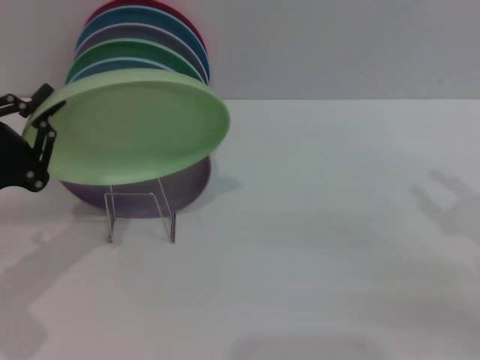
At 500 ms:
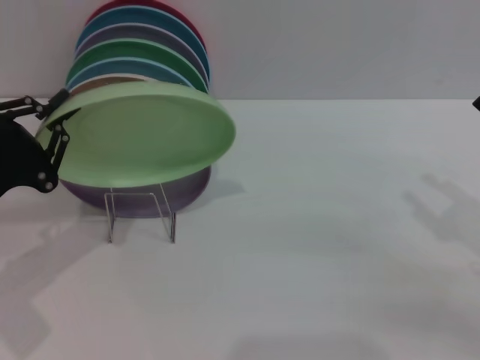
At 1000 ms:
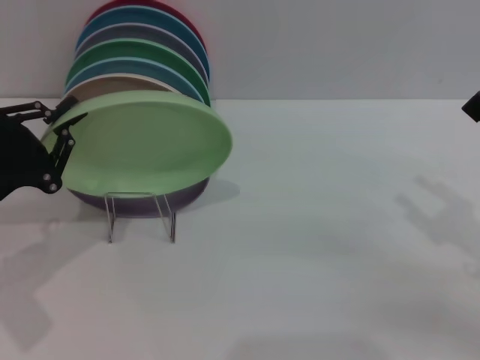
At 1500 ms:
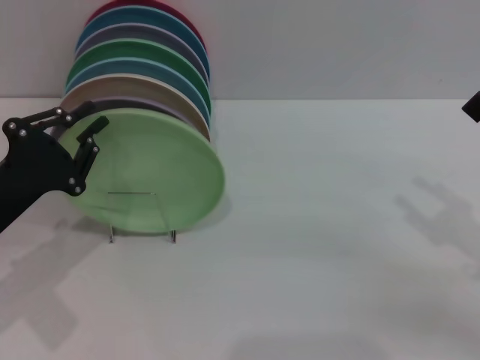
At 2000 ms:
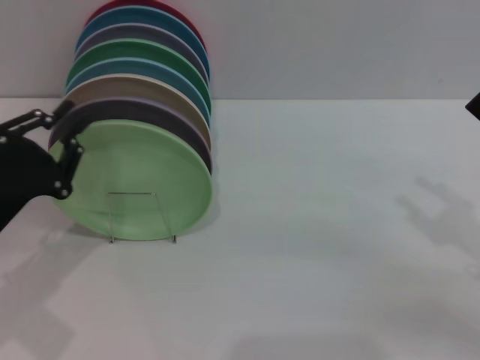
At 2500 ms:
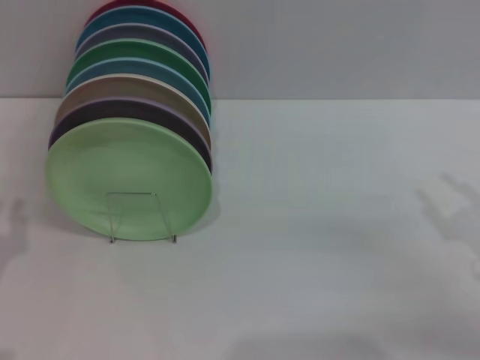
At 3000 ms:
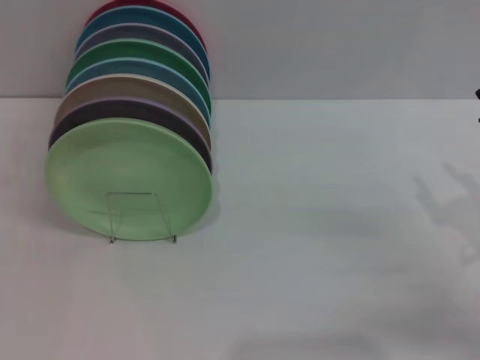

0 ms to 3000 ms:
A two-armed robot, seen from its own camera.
Task of the whole recording: Grip the plate with one hand, pass it to the other, then set it on the shelf.
0 ms to 1500 ms: The grippers stay close to where they were, moving slightly.
1500 ms to 3000 ms: The left gripper moves backward and to the left, some 10 cm, and opens.

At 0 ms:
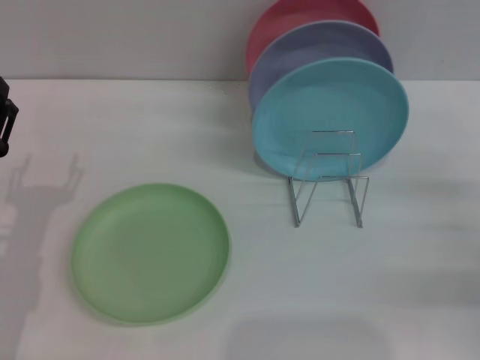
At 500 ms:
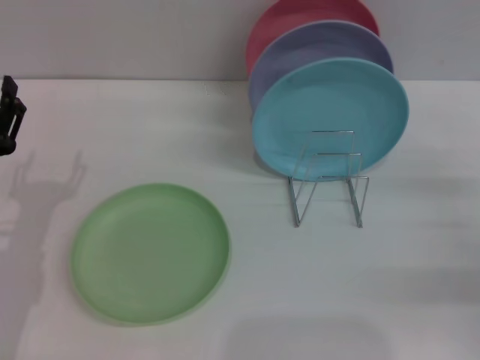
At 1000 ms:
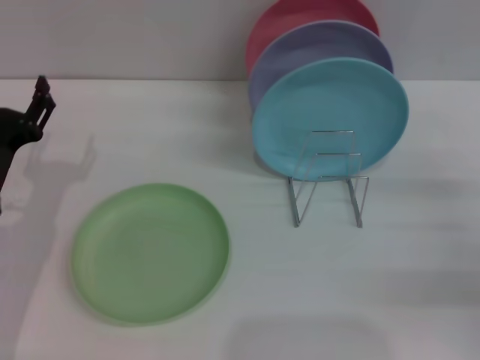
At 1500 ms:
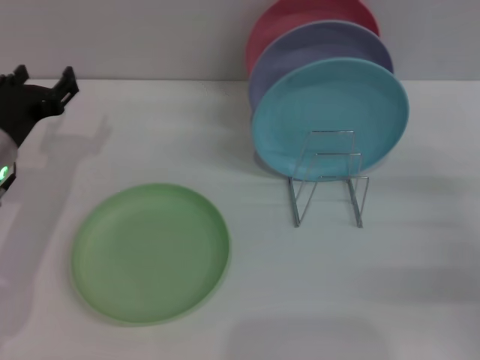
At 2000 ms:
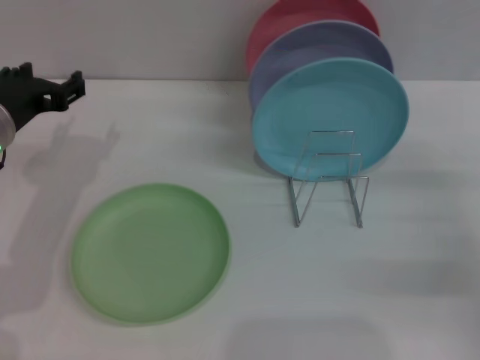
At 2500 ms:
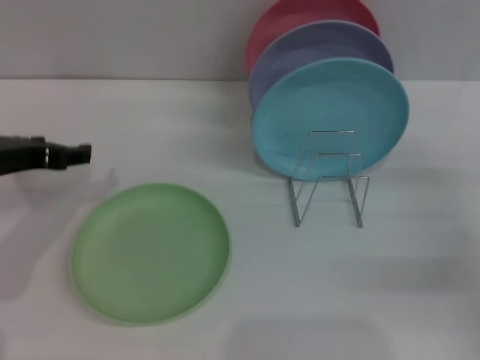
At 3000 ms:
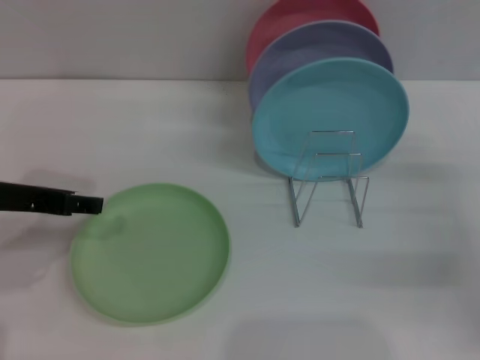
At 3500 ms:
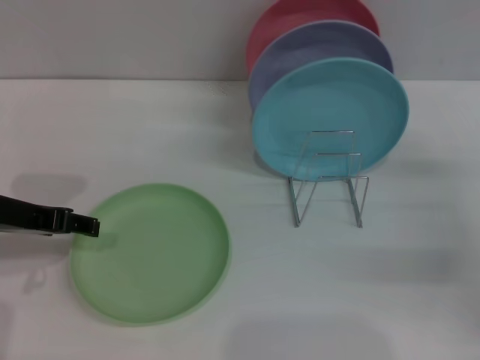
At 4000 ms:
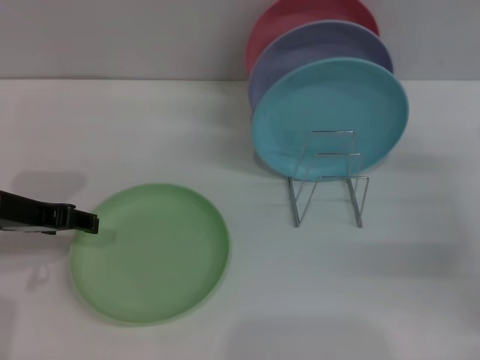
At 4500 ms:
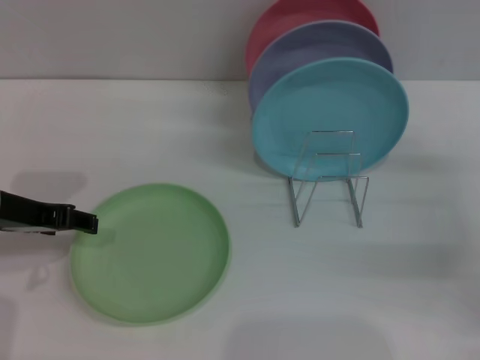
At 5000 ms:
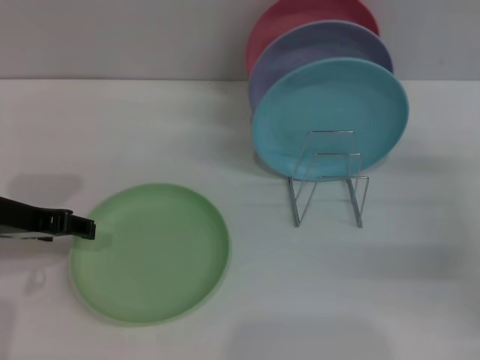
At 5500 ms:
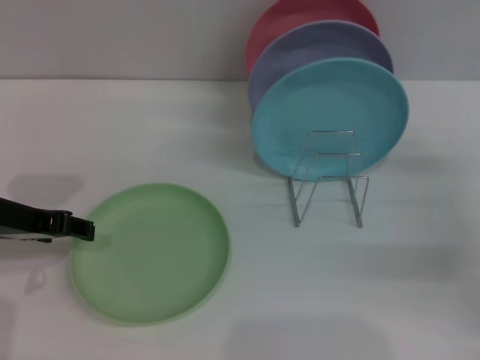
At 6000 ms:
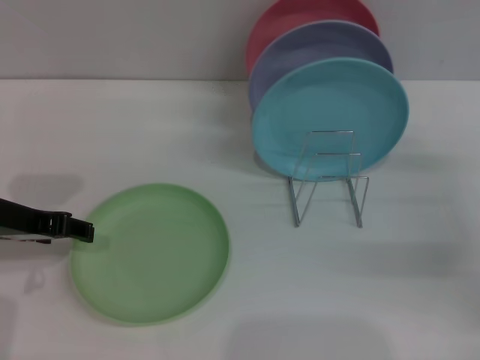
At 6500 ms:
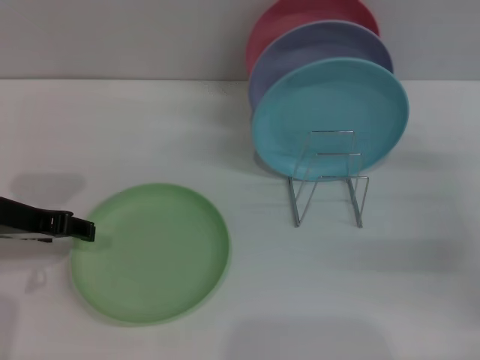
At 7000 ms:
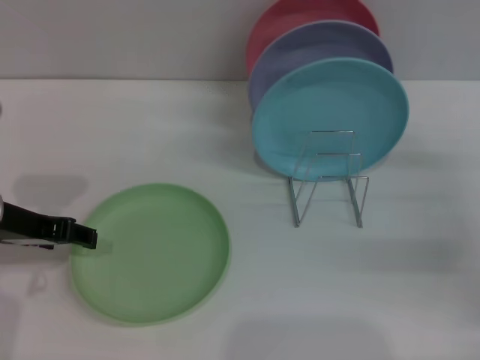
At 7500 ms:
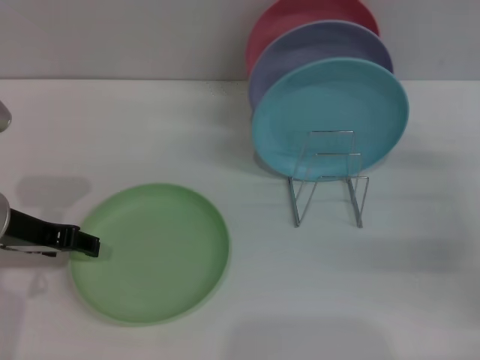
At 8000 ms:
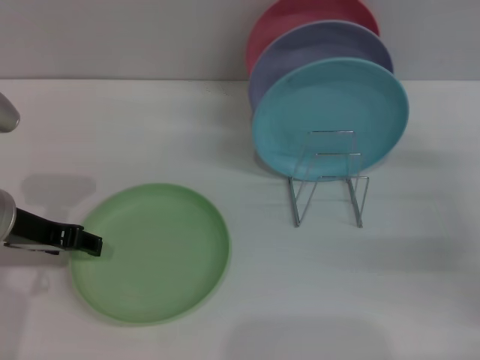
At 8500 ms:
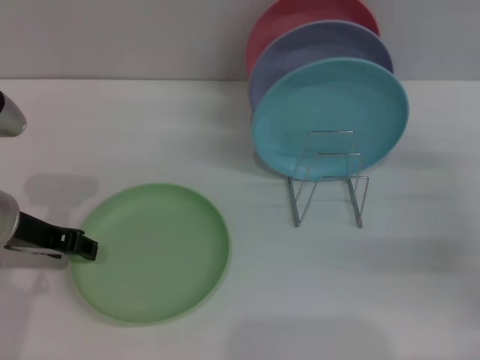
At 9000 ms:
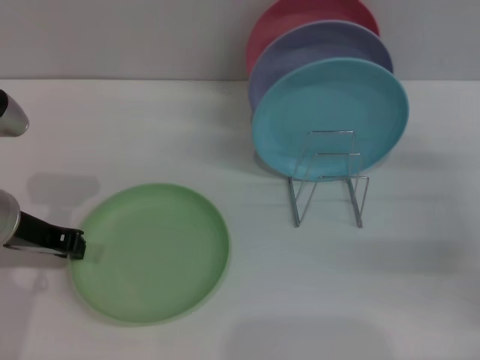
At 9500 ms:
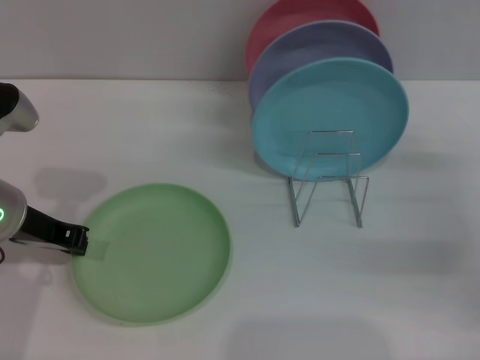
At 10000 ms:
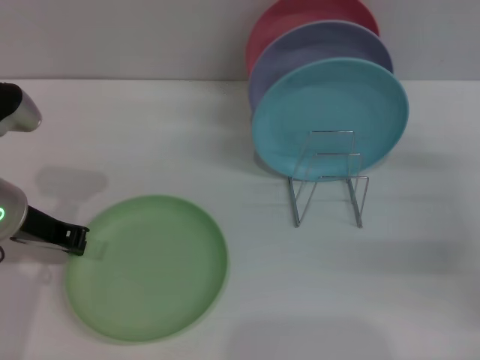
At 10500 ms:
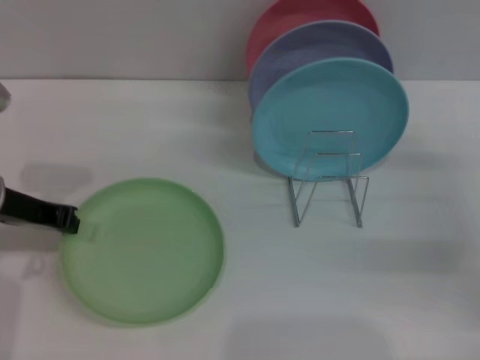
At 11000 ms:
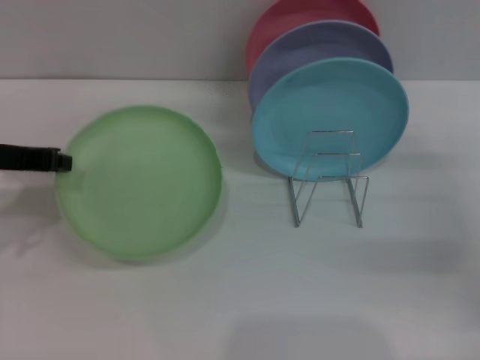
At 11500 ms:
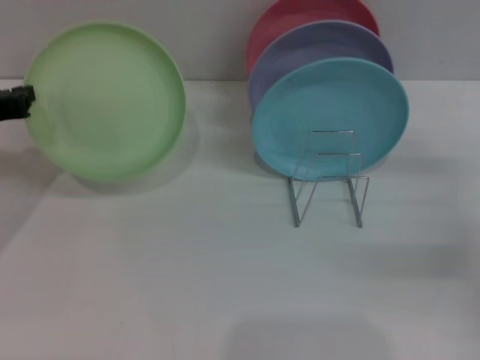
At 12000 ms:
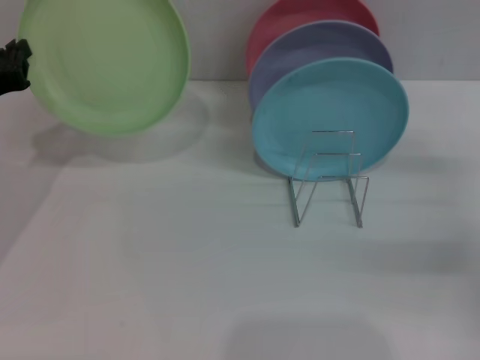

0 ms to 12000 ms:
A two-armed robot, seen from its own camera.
Task of the whole recording: Grip the plate with one hand, pass it to the other, then set it on the shelf.
Step, 0 ms to 11500 ms: Pick up the plate with the left gripper.
0 ms to 2000 ms: The left gripper heads forward and upward, covering about 15 cm.
4000 ms to 6000 ms: Neither gripper changes place.
6000 ms to 8000 ms: The grippers move only a little.
8000 ms to 10000 ms: The left gripper closes.
10000 ms to 12000 ms: The left gripper is displaced to the left by about 5 cm.

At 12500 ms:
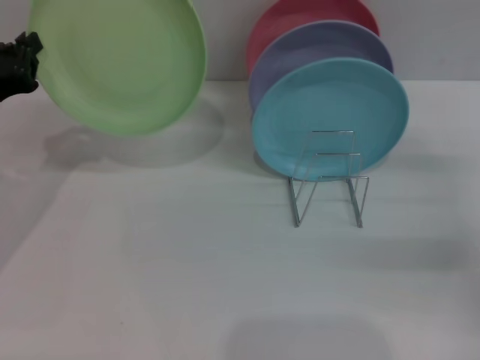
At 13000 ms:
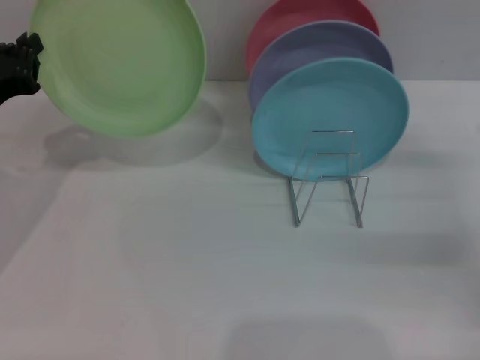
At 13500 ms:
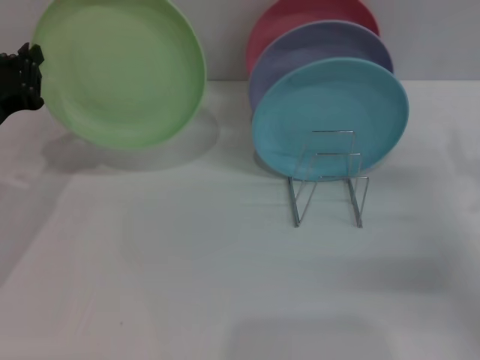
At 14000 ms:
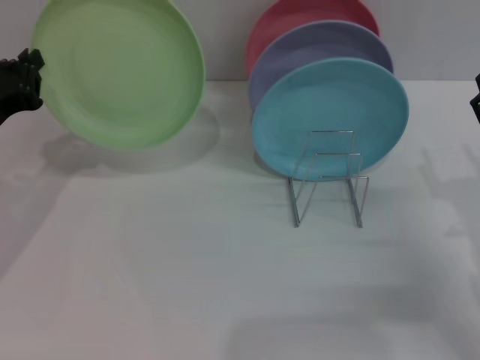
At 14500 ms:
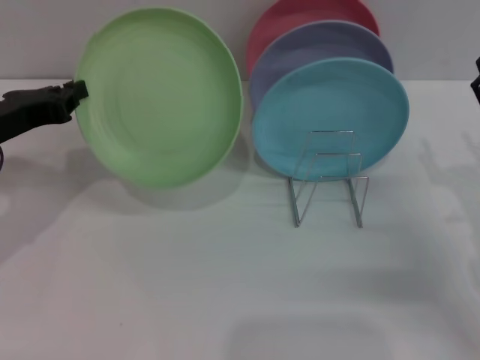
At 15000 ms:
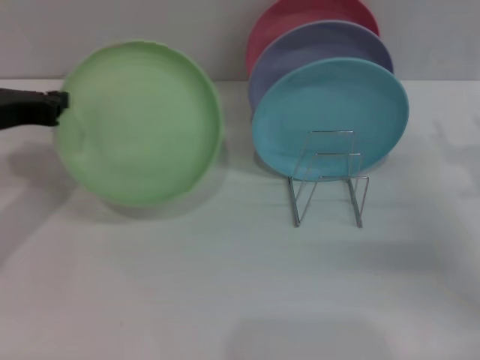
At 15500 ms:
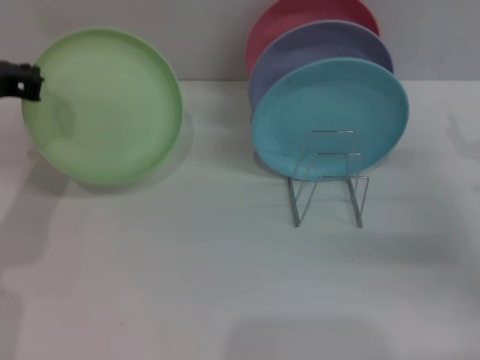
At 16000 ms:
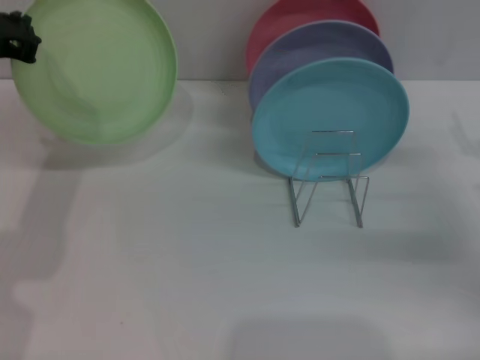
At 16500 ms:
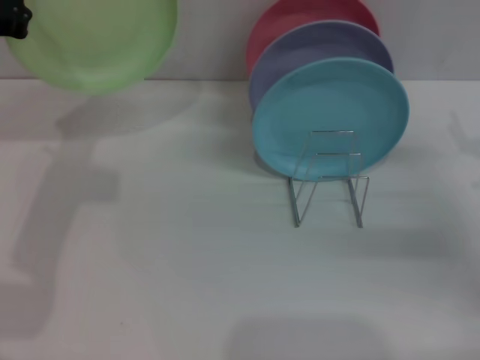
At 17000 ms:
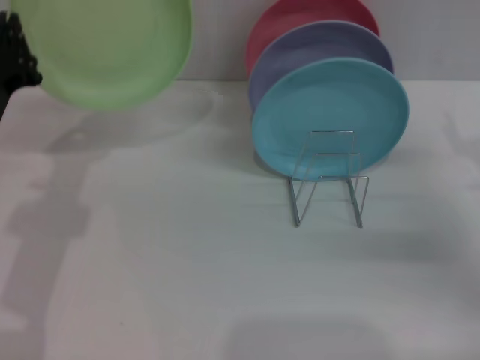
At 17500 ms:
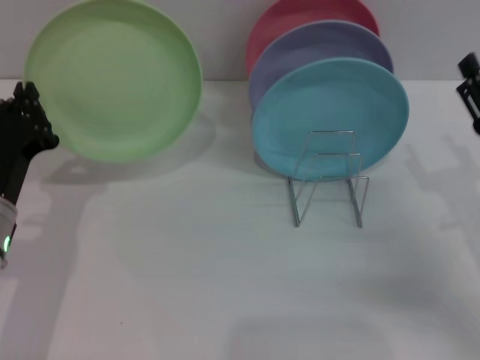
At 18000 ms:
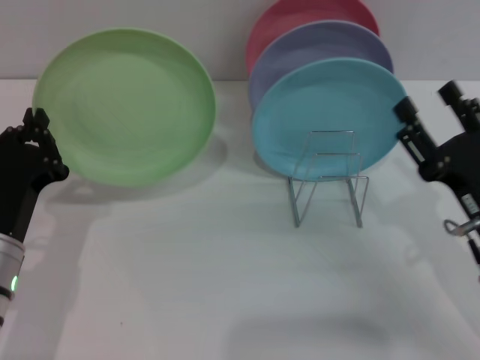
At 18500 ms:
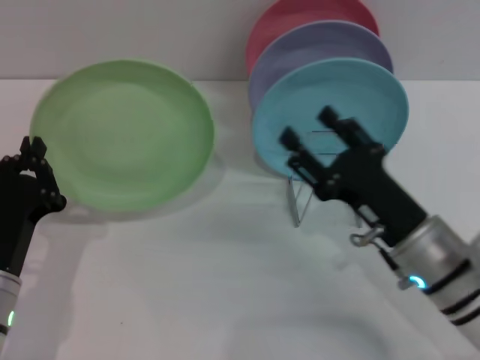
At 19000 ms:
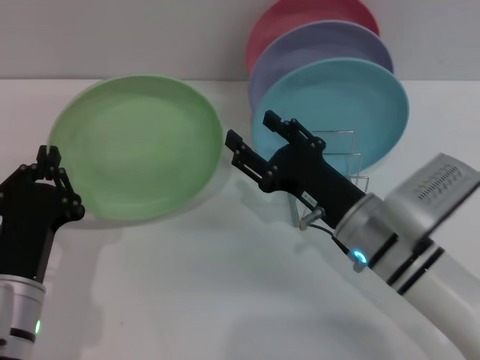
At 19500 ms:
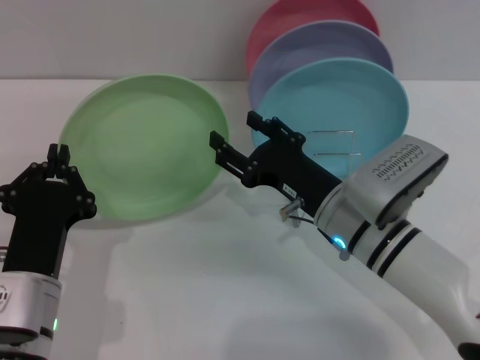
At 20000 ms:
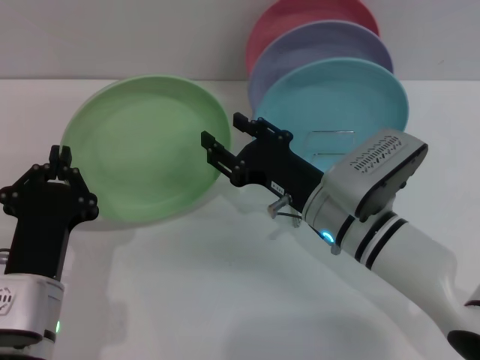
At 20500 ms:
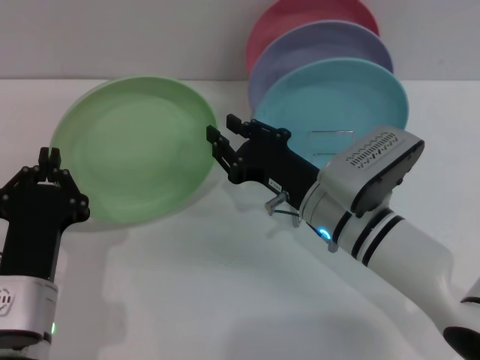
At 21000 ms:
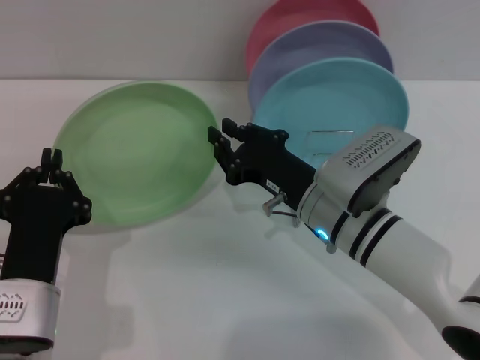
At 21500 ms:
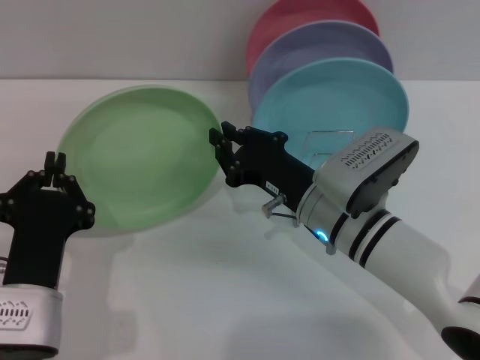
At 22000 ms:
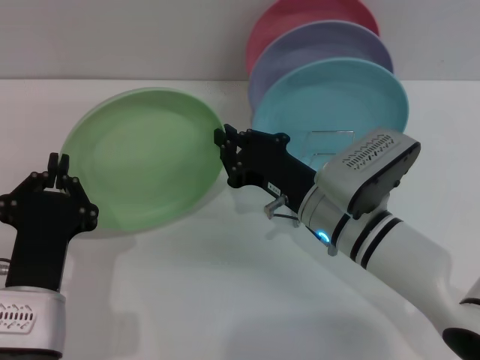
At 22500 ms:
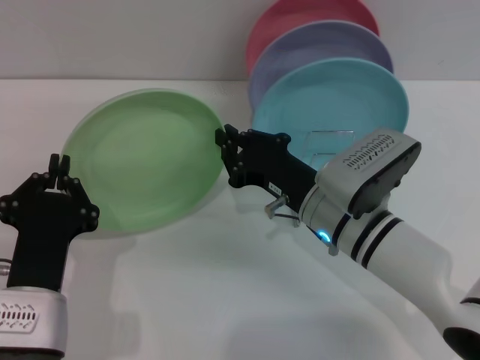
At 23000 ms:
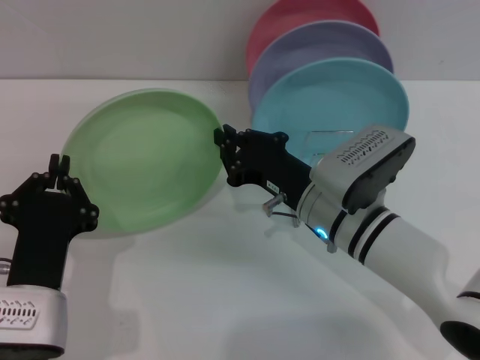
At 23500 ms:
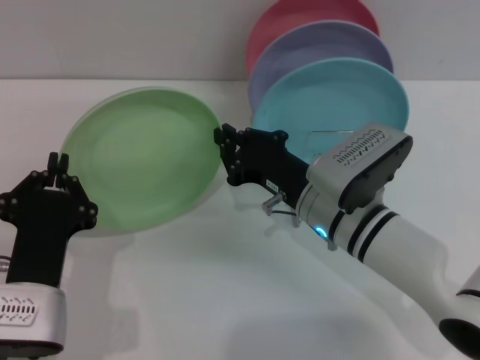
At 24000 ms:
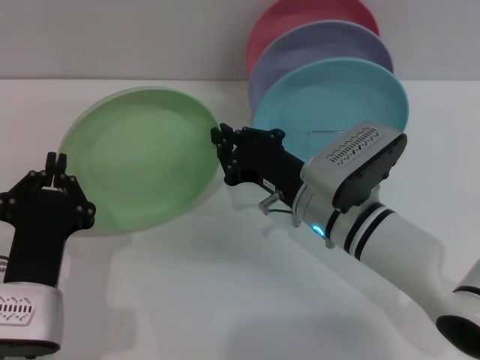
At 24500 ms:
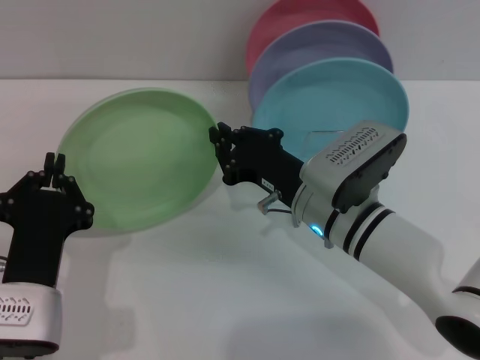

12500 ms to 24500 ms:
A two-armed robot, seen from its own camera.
Task of the whole recording: Grip the plate with one hand, pass it to the other, then set it on the shelf.
12500 ms to 14500 ms: The right gripper travels to the left by some 5 cm.
14500 ms to 16500 ms: The right gripper shifts by about 5 cm. The left gripper moves upward, about 5 cm.
16500 ms to 18500 ms: The right gripper moves to the left, some 15 cm, while the left gripper travels downward and backward by approximately 20 cm.
18500 ms to 20500 ms: The right gripper travels to the left and forward by approximately 10 cm, and closes.
20500 ms to 22500 ms: The right gripper closes.
22500 ms to 24500 ms: The two grippers keep their place.
